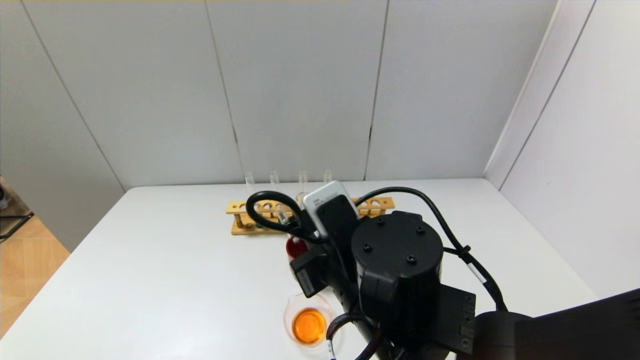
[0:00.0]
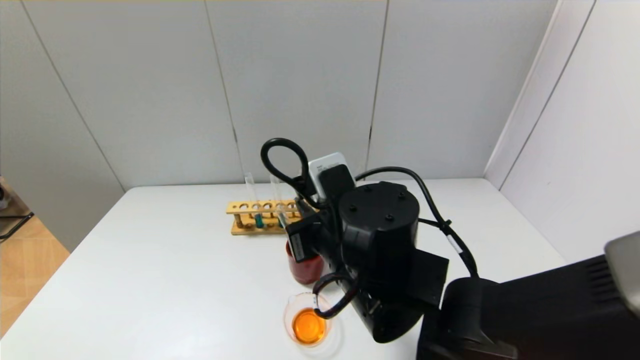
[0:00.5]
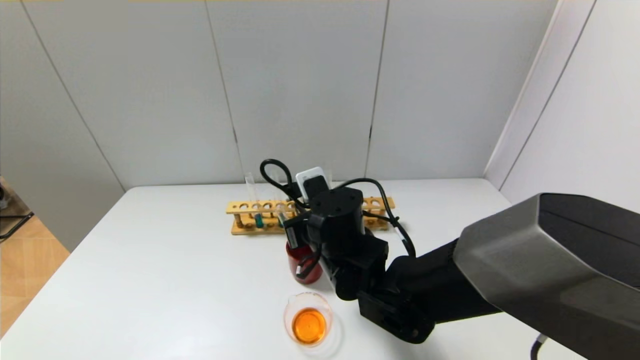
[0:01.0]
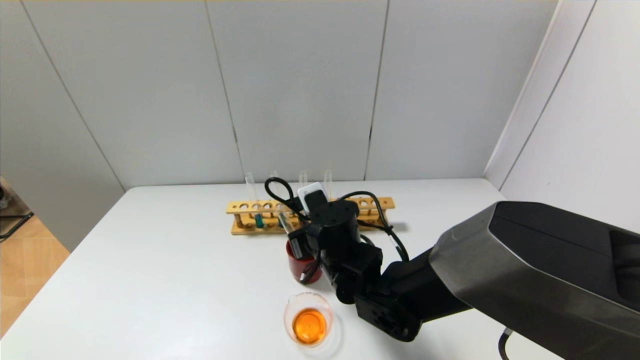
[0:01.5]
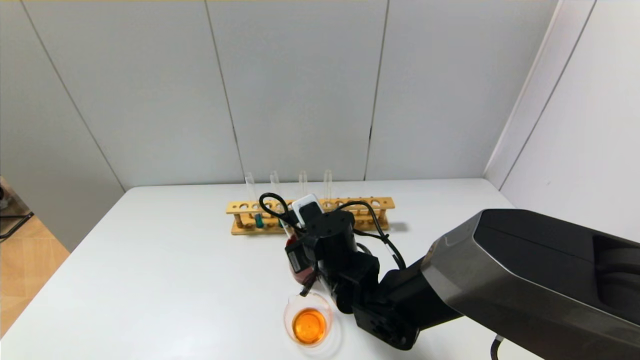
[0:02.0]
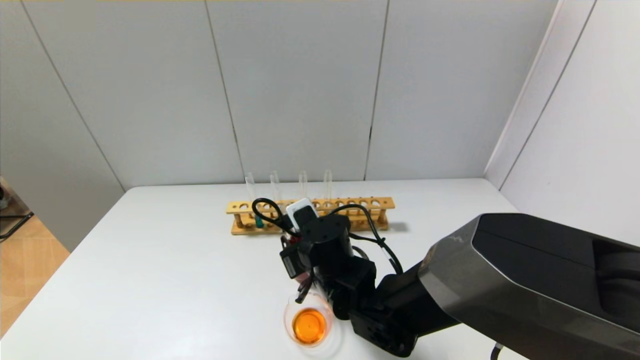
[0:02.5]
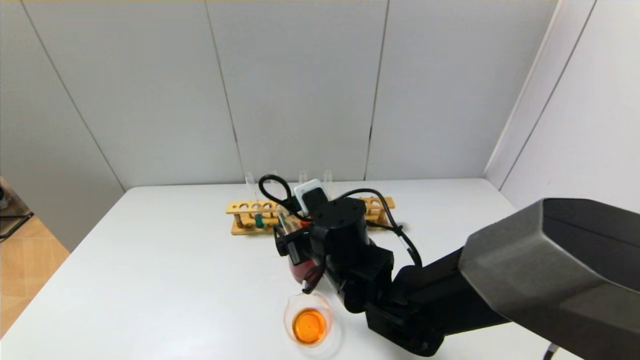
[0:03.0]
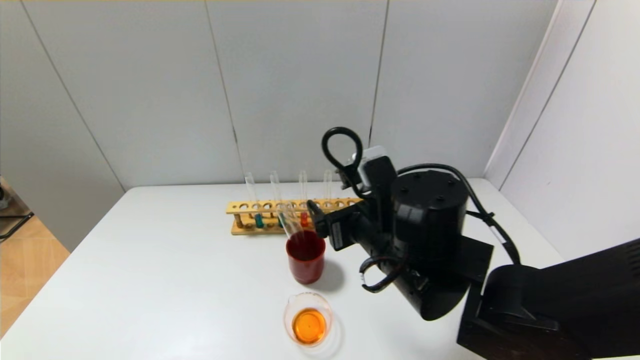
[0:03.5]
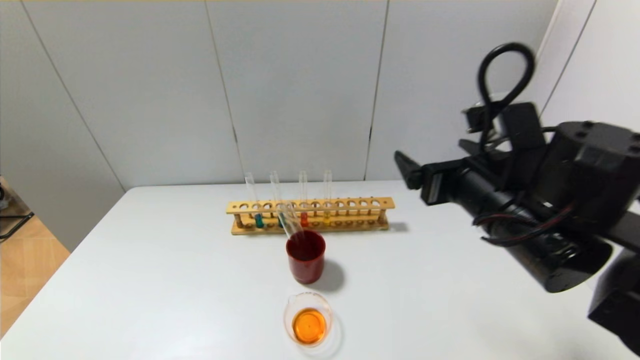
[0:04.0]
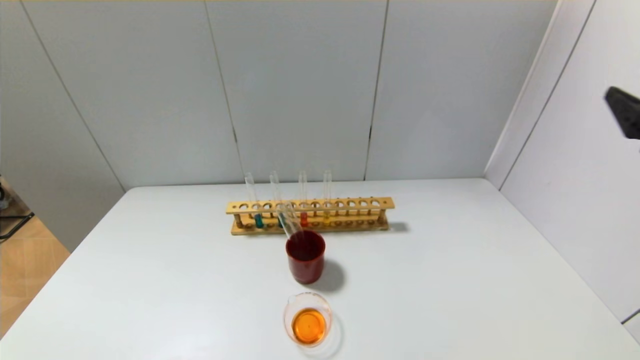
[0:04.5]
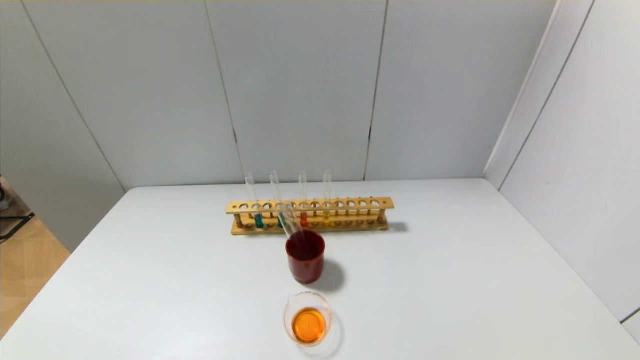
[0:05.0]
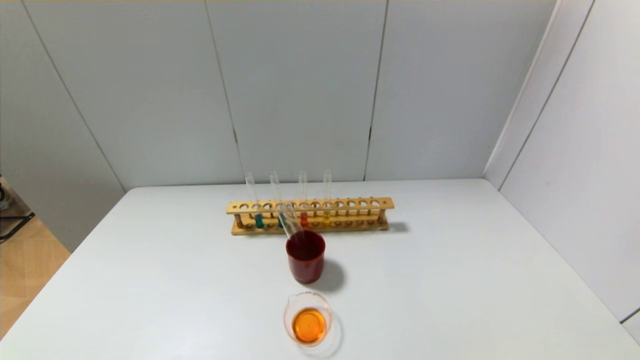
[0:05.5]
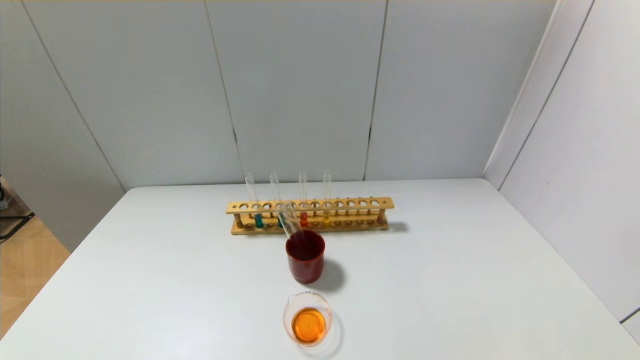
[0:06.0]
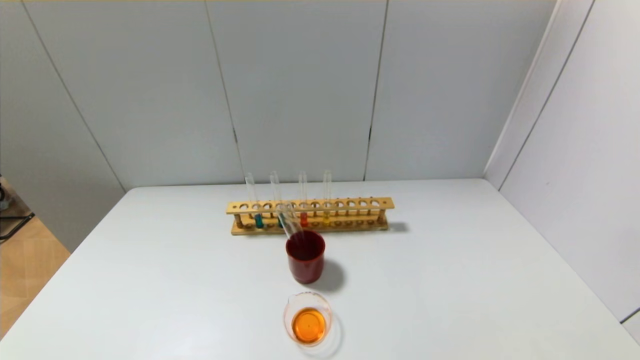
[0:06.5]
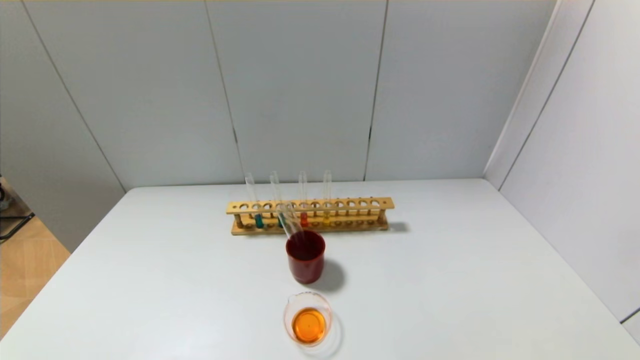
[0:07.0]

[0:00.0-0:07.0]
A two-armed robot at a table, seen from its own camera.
Step, 0:00.0 to 0:03.0: Place the test tube into the brown cup with the right gripper.
0:00.0 to 0:02.0: The right gripper moves forward and downward, approximately 15 cm.
0:02.0 to 0:03.5: The right gripper moves upward, to the right and backward, approximately 15 cm, and opens up.
0:03.5 to 0:05.0: The right gripper travels to the right and backward by some 40 cm.
